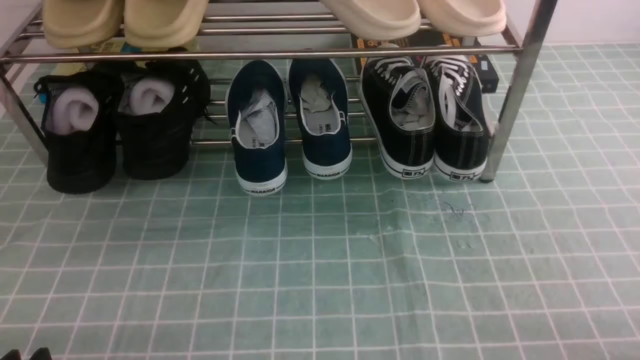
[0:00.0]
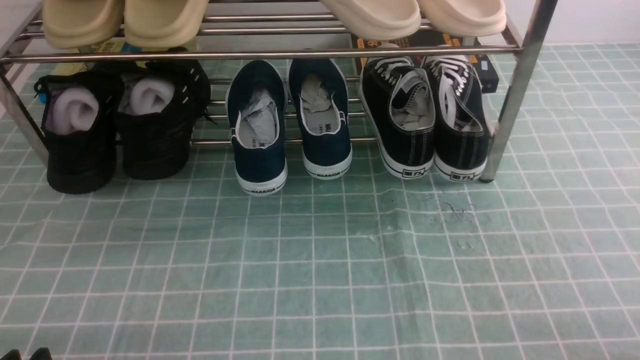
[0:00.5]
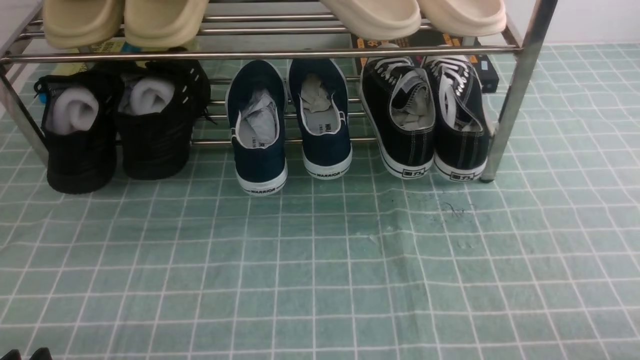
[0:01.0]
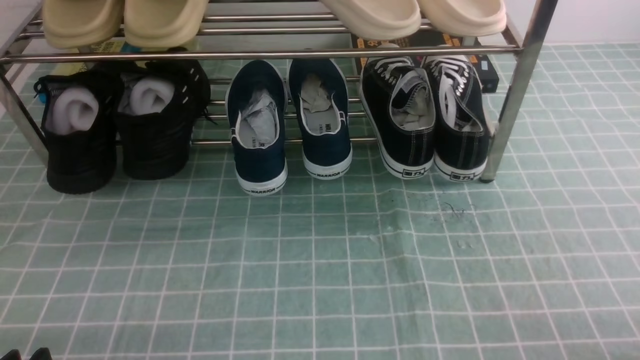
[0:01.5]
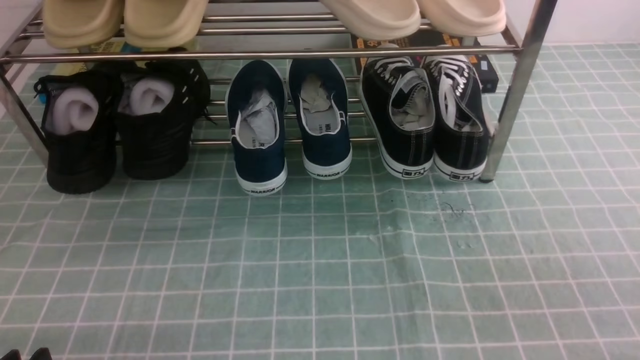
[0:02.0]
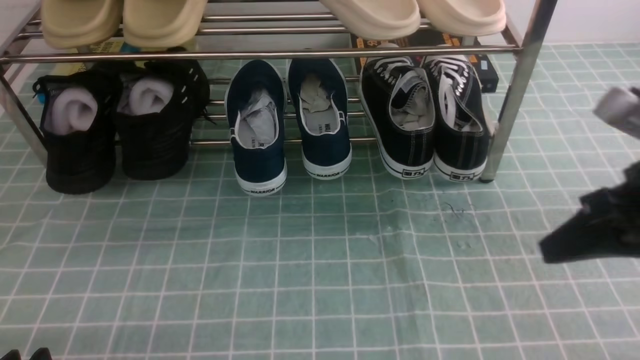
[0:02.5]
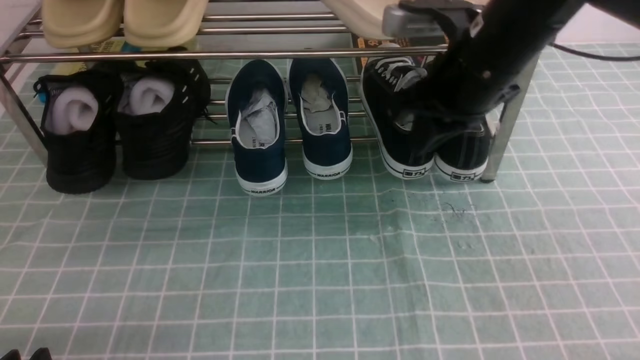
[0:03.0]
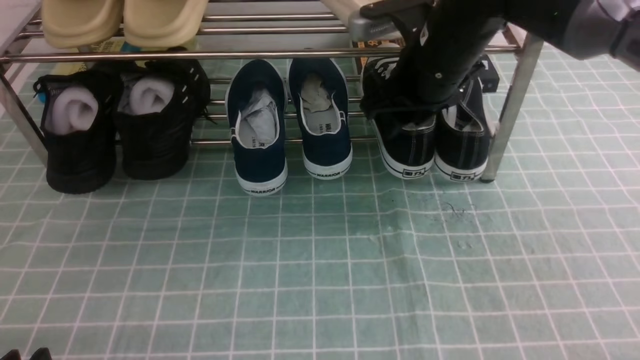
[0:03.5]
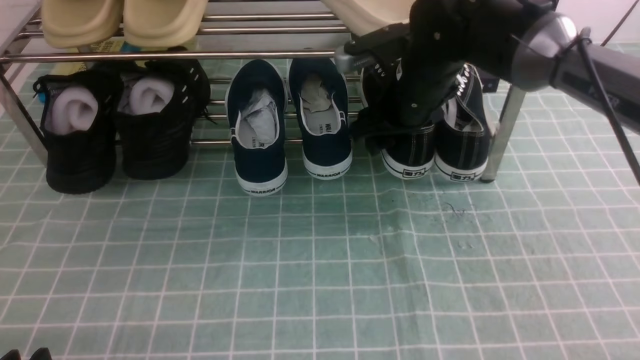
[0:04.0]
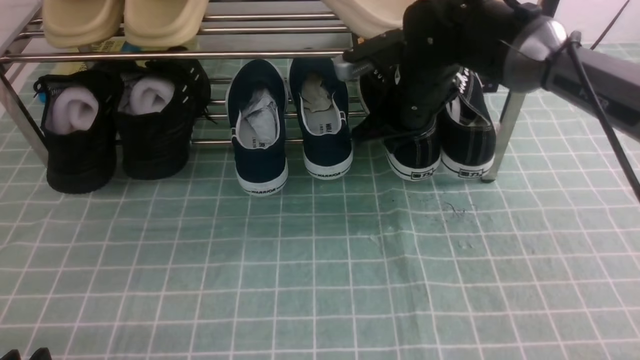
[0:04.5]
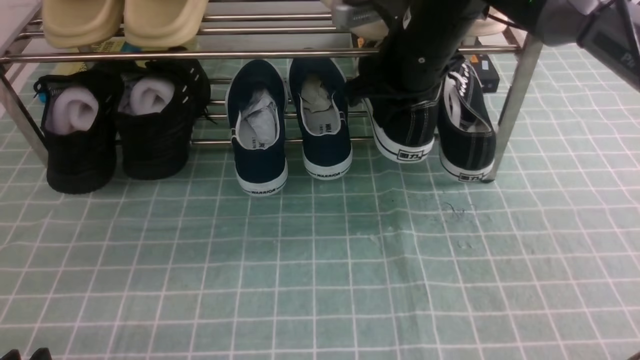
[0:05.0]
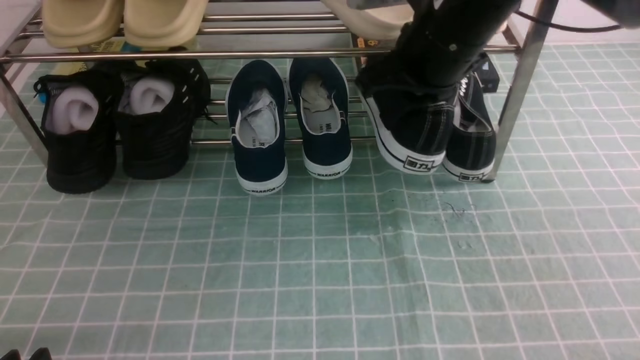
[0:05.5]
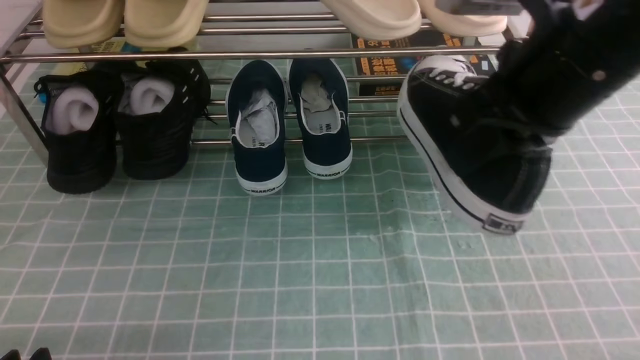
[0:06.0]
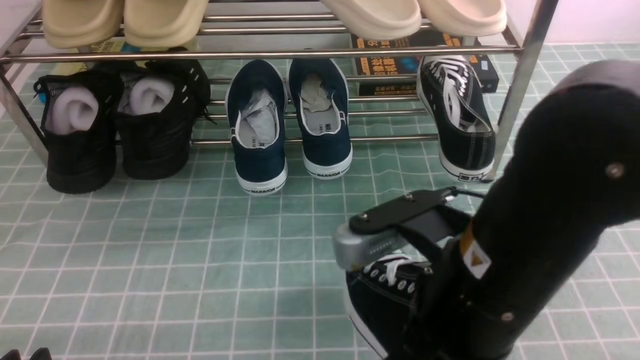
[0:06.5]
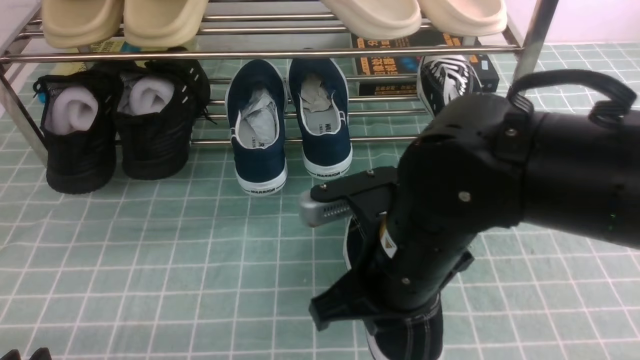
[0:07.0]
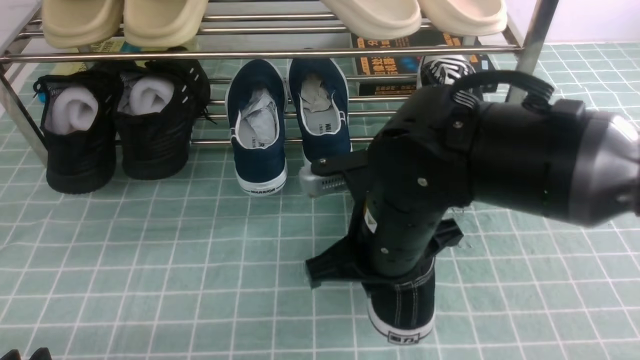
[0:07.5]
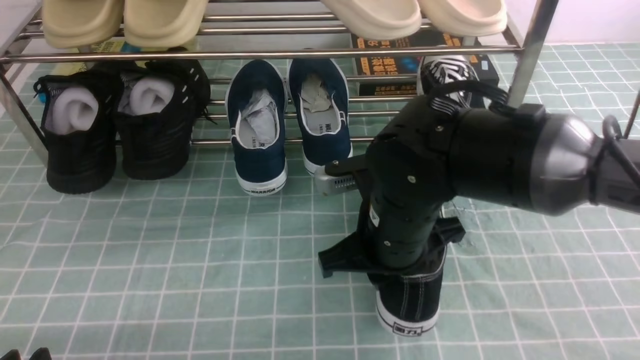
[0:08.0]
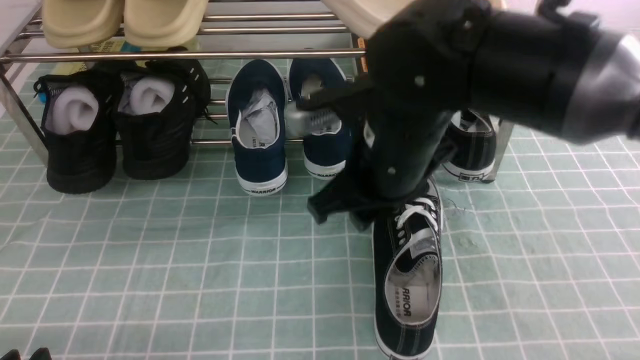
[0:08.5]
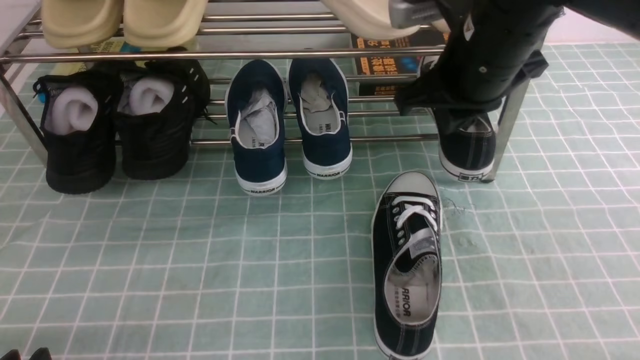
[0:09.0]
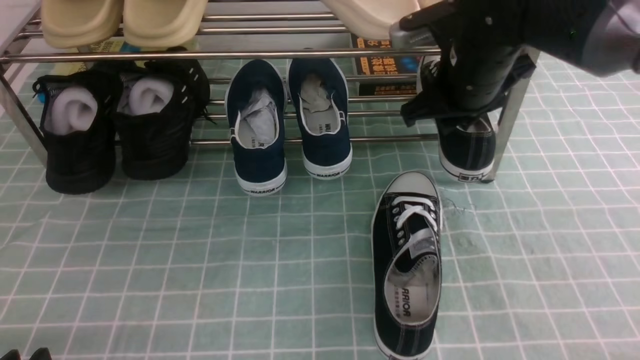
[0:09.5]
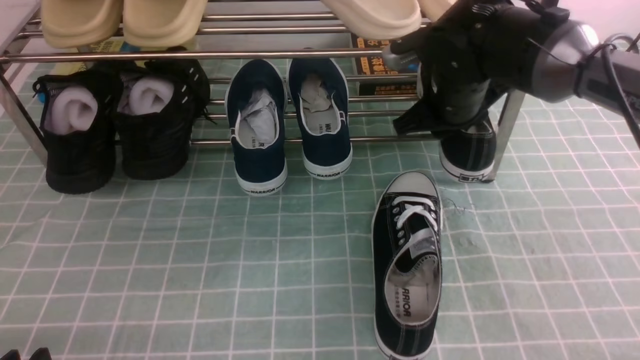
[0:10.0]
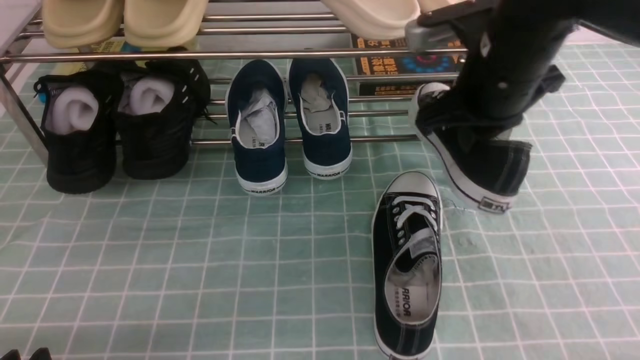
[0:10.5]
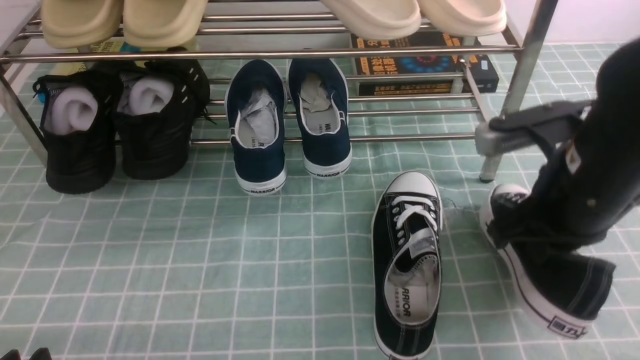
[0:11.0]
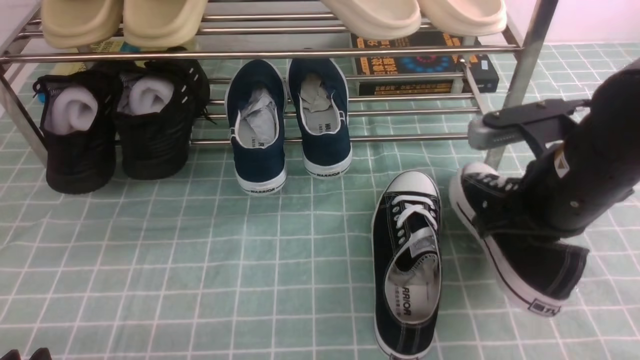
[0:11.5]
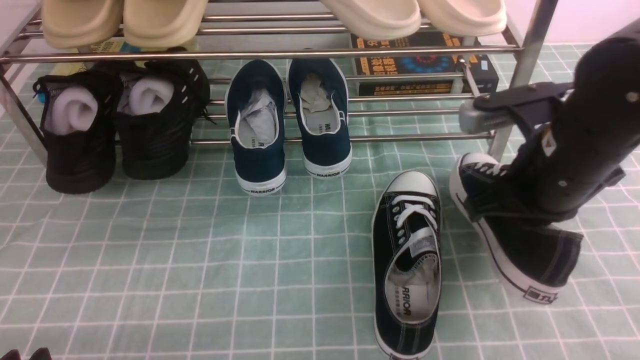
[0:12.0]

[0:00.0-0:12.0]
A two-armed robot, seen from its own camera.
Step, 0:00.0 to 0:04.0: use the right arm to clamp a shoe on the right side of the shoe rack.
Step, 0:04.5 to 0:08.5: use the right arm to take out the clamped shoe from the shoe rack and put it down.
Step, 0:09.0 to 0:09.5: use the right arm to clamp a shoe on the right side of the shoe rack.
0:02.0 to 0:04.0: The right gripper goes roughly 40 cm forward and to the left, and opens its fingers.
0:04.0 to 0:06.0: The right gripper moves backward and upward, some 20 cm, and closes.
0:06.0 to 0:08.0: The right gripper moves downward and to the left, some 20 cm.
0:08.0 to 0:10.0: The right gripper is displaced forward and to the right by approximately 15 cm.
0:10.0 to 0:12.0: The right gripper travels backward by about 15 cm, and closes.

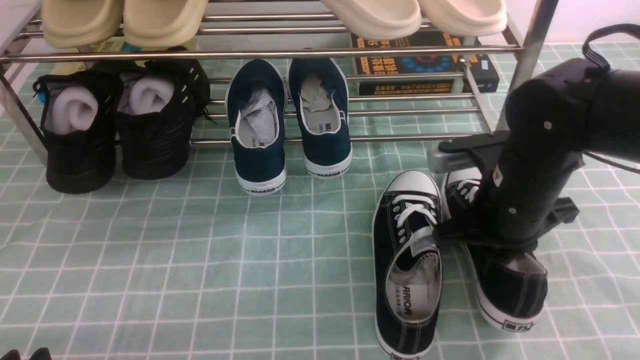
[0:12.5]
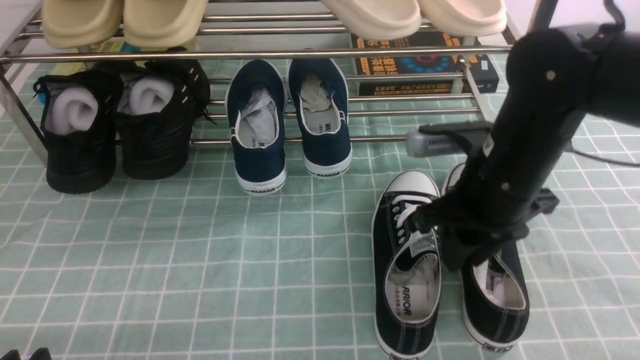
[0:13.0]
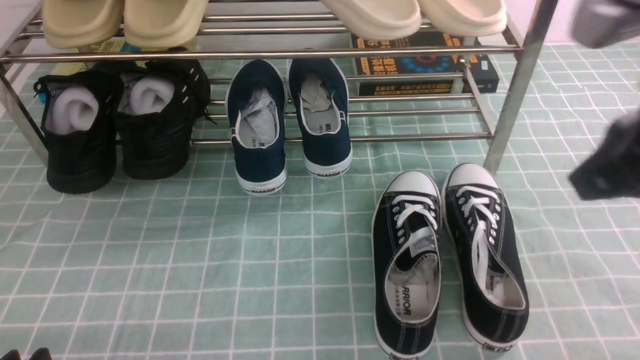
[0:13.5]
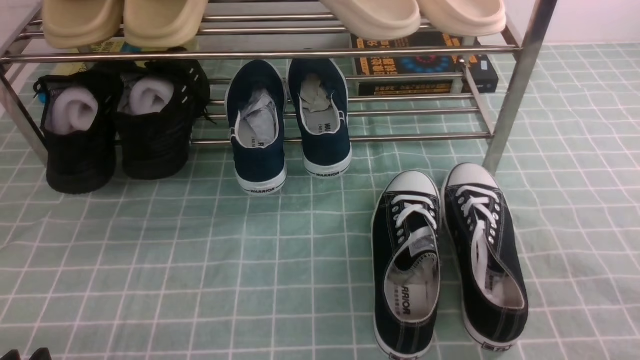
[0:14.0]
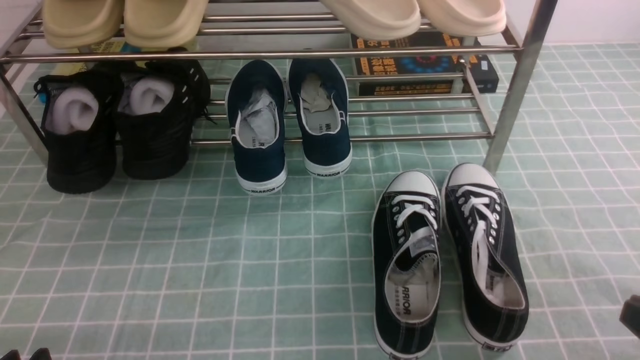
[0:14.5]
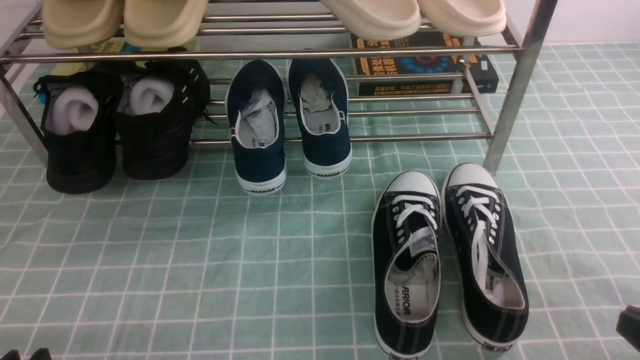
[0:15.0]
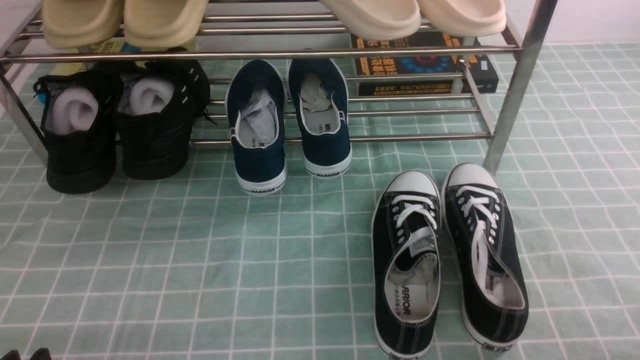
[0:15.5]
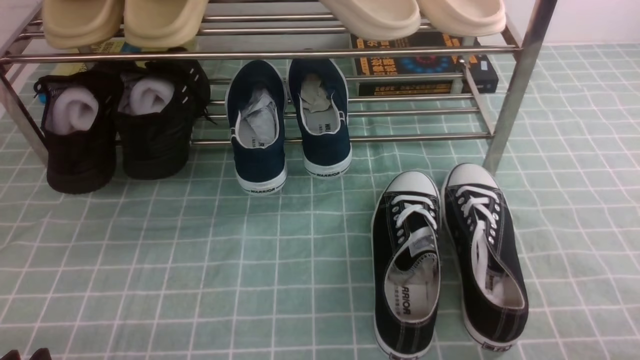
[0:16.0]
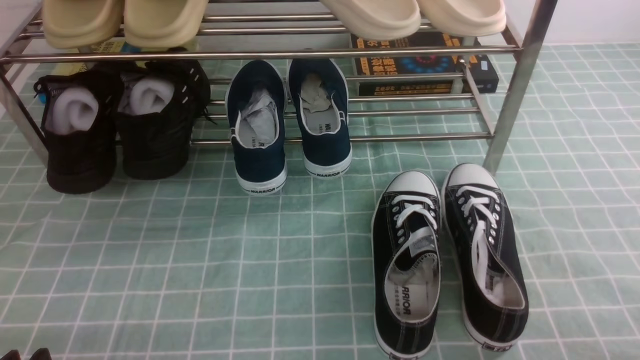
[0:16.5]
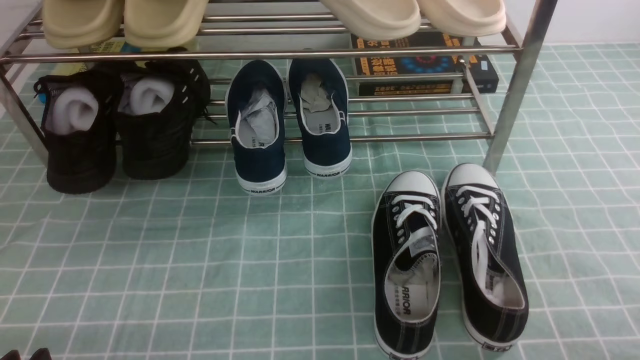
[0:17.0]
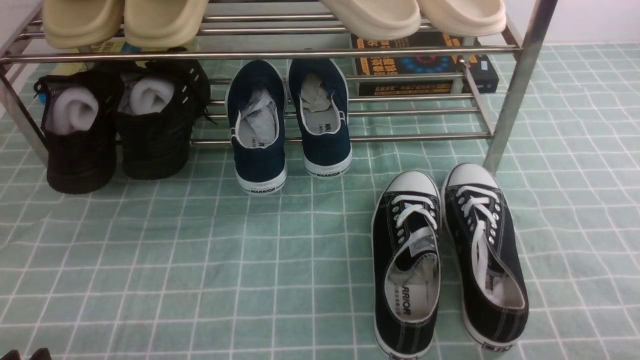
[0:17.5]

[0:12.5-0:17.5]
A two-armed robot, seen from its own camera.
0:12.5 to 0:15.0: The right gripper heads backward and to the right, covering some 25 cm, and opens, then closes again.
